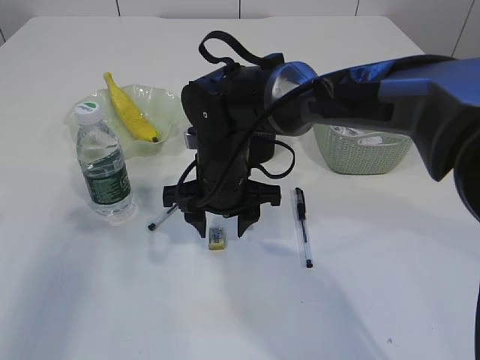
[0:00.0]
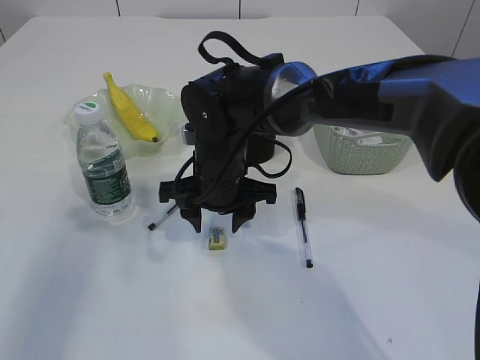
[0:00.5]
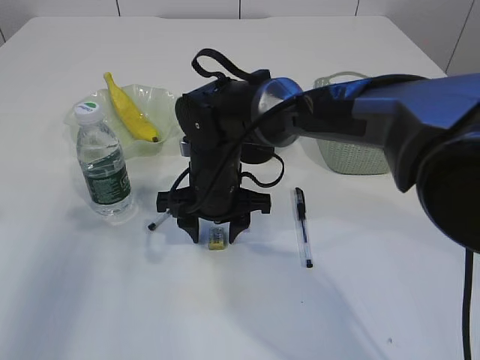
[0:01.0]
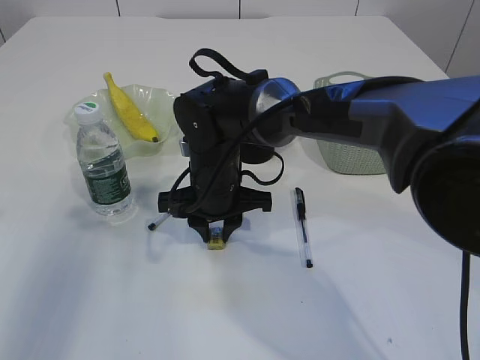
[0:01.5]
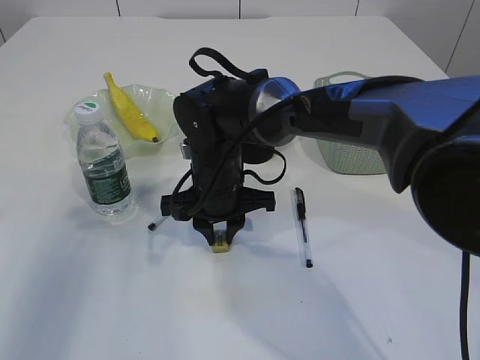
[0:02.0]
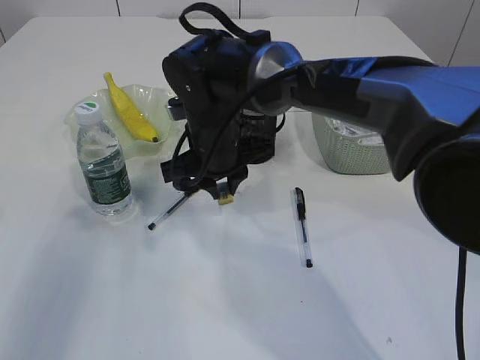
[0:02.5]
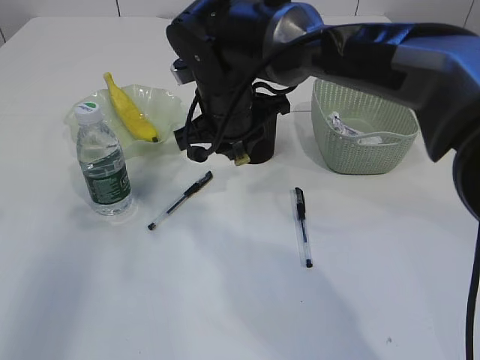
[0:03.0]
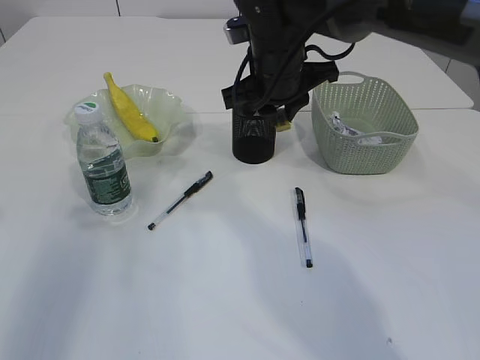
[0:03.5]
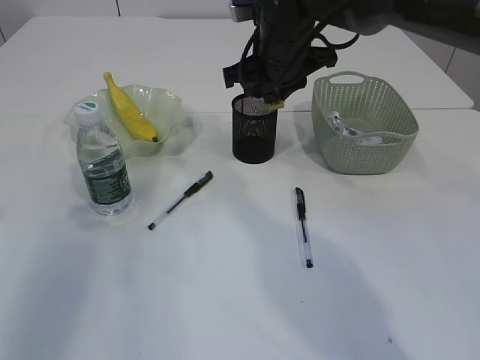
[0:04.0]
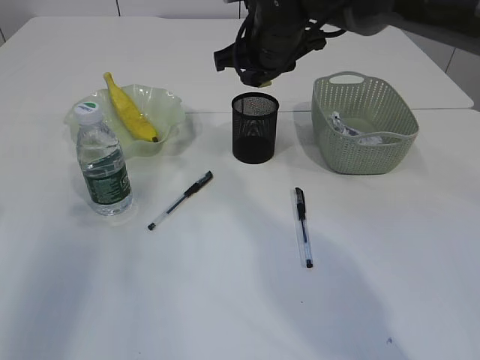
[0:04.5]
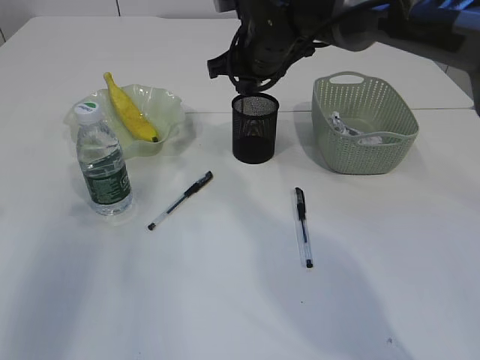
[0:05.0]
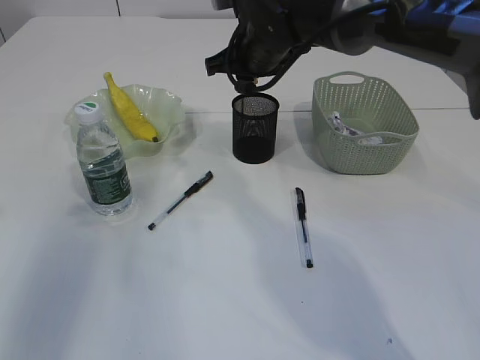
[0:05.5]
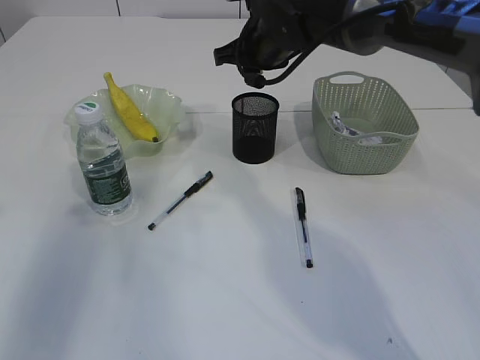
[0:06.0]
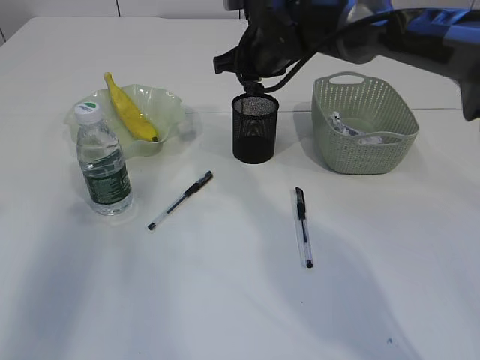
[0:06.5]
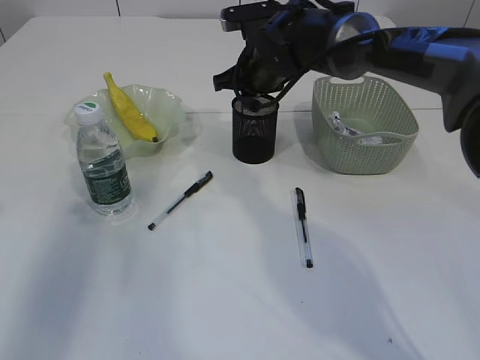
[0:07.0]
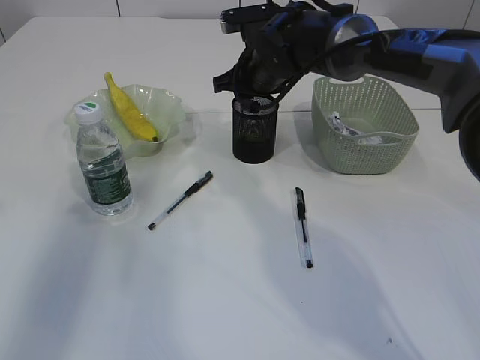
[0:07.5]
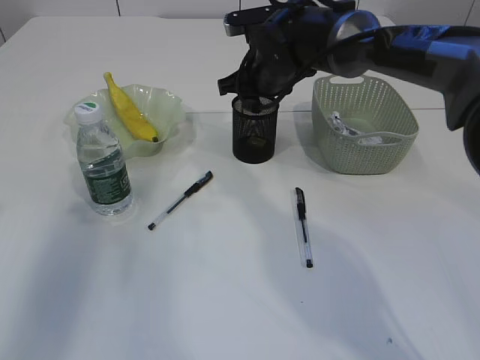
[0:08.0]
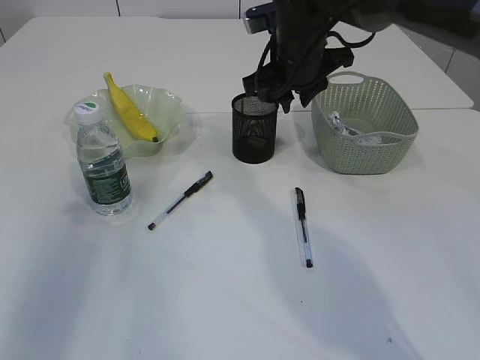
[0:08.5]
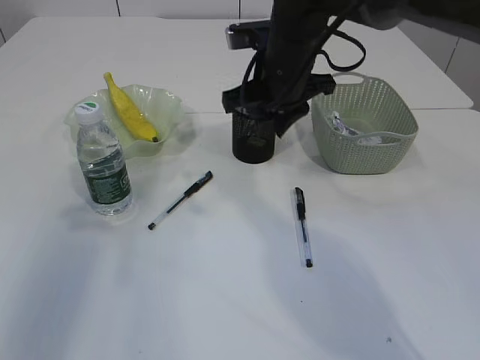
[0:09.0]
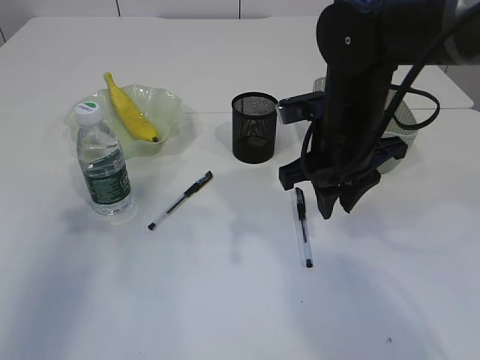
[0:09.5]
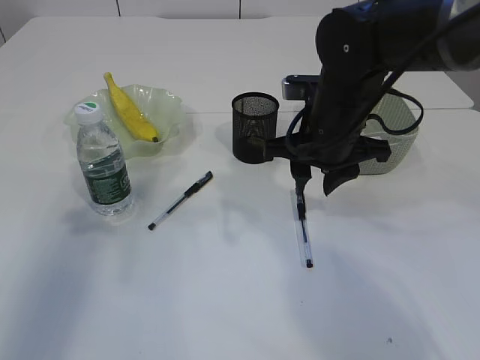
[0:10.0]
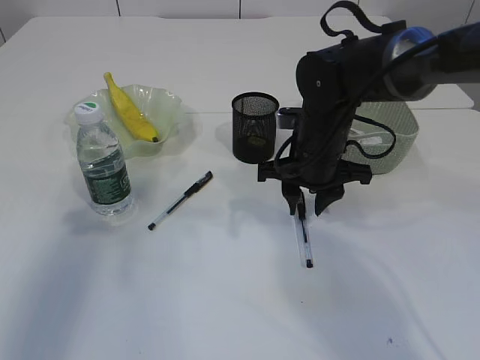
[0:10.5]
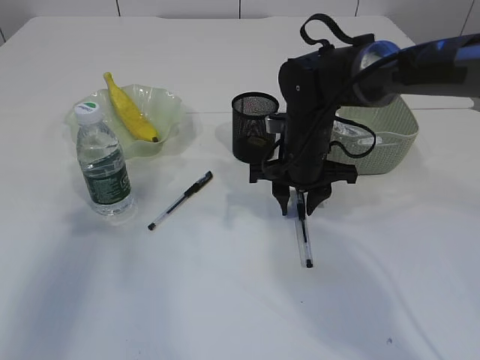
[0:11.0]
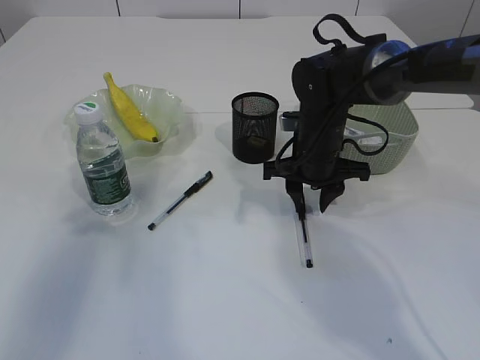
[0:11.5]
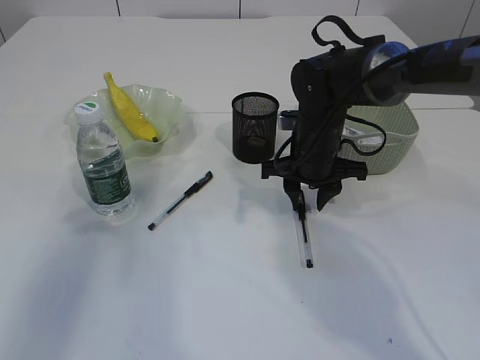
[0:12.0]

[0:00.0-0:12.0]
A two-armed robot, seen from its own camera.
Step, 0:00.0 to 0:02.0: Pick up the eraser.
Step, 0:02.5 to 0:08.0: Place the eraser into the pen holder.
0:00.0 to 0:02.0: The right gripper closes its fingers.
0:02.0 to 0:04.0: The right gripper goes roughly 15 cm upward, to the right and forward.
0:06.0 to 0:08.0: There are only small adjustments of the grippers.
0:08.0 to 0:10.0: The right gripper heads backward, covering some 15 cm.
0:10.0 to 0:12.0: The right gripper goes some 10 cm downward and forward.

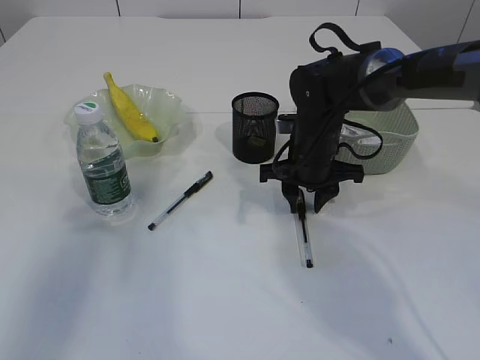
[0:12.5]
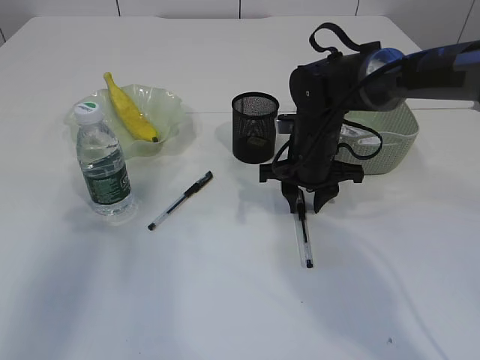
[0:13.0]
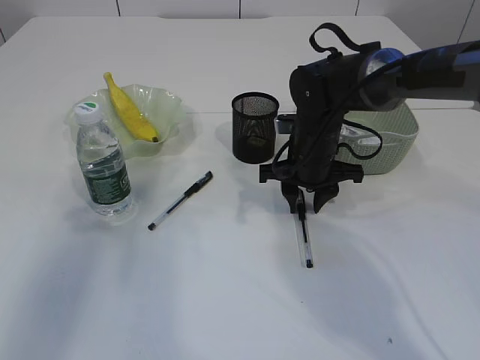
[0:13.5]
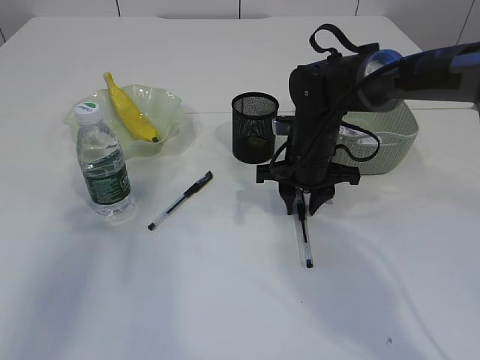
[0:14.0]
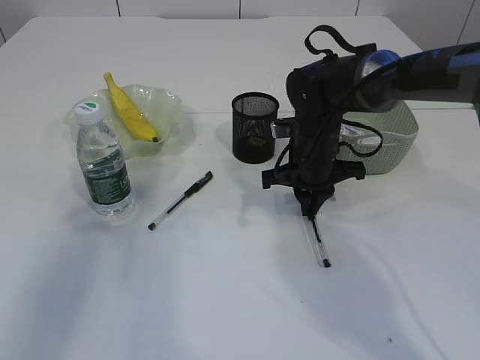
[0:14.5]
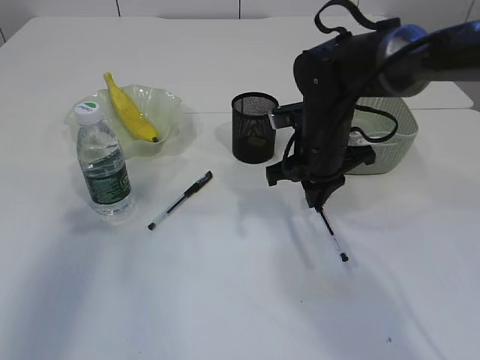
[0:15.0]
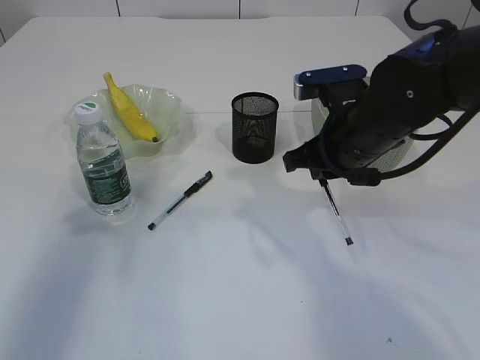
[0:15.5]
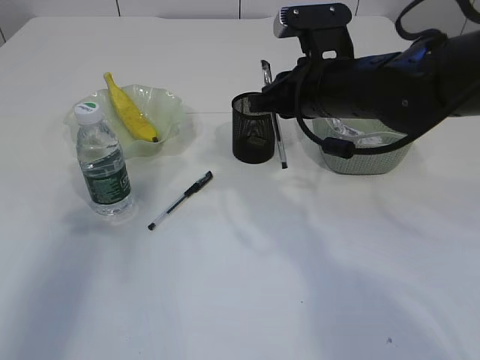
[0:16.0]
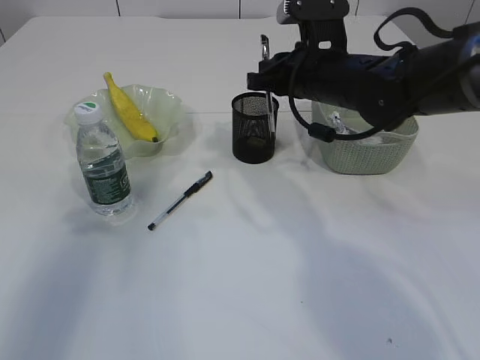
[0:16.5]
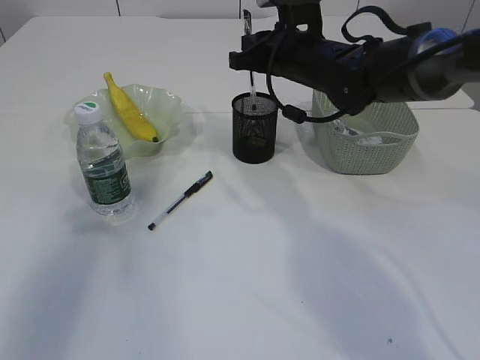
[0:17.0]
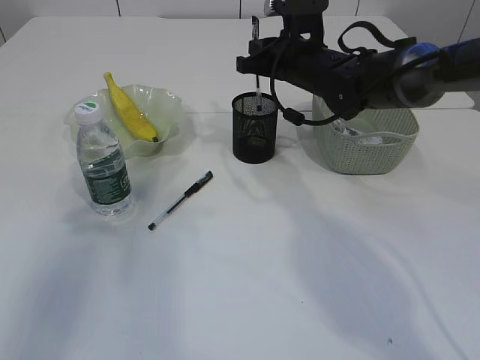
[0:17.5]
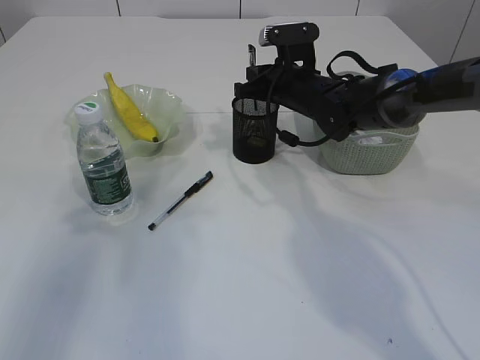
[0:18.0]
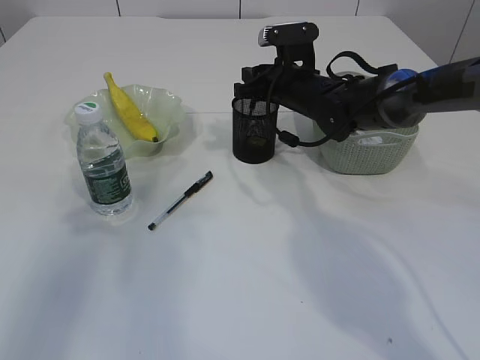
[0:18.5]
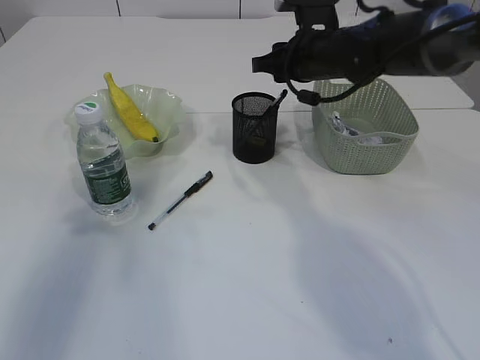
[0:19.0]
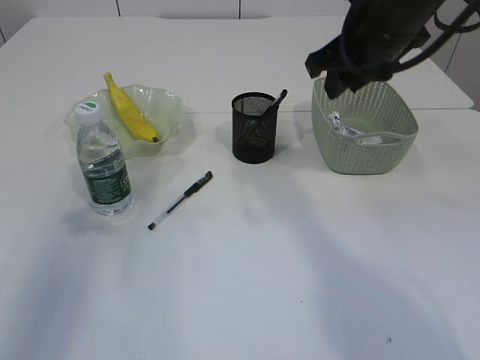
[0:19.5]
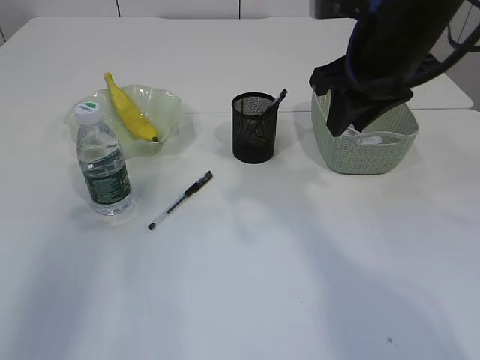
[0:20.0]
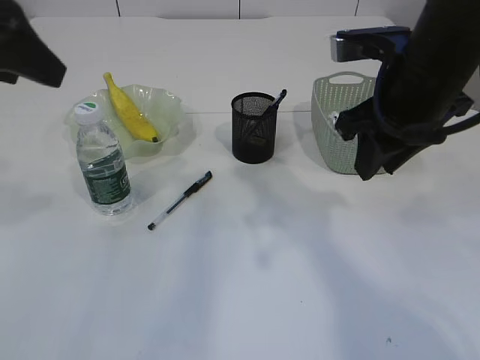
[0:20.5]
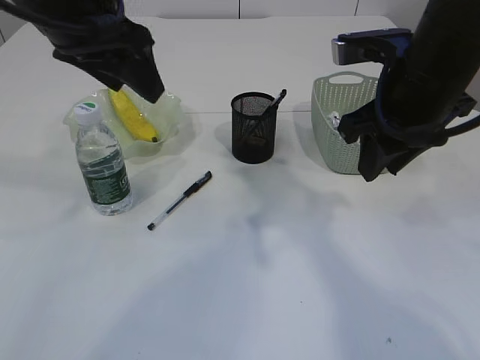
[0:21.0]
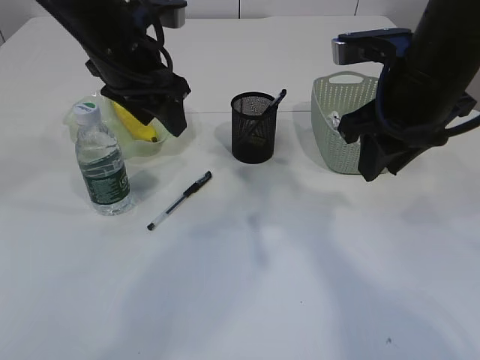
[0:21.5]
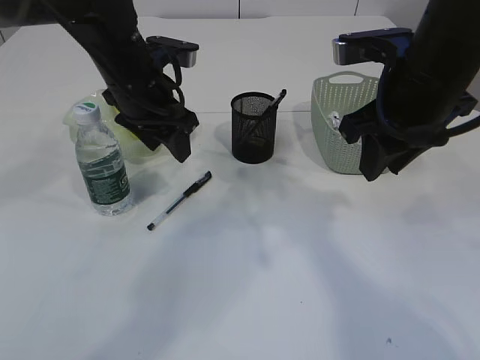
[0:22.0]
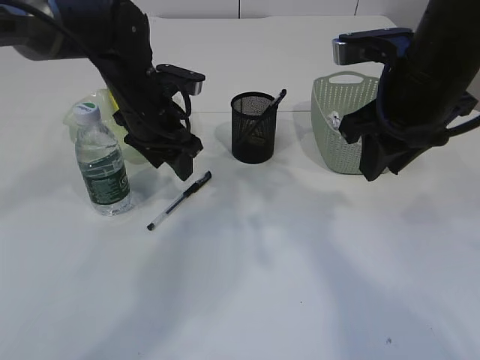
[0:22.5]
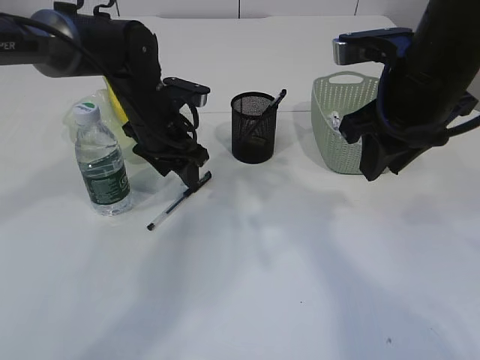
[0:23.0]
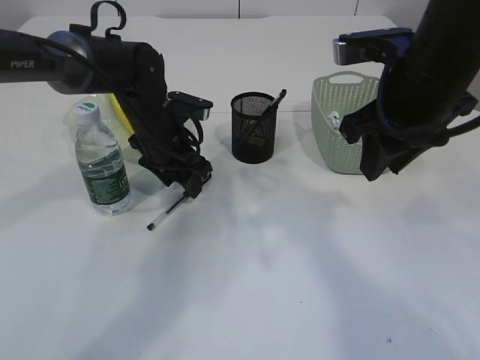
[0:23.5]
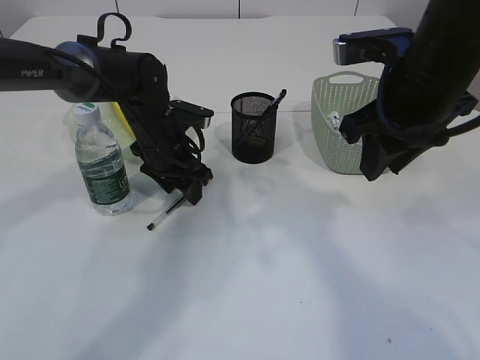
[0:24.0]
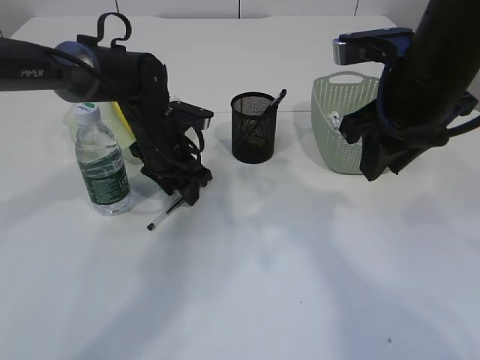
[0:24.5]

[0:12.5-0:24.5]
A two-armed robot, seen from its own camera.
Step, 0:12.5 to 0:15.0: Pick up the pen with right arm.
Step, 0:15.5 to 0:18.5: Place the pen into the pen holder.
0:12.5 to 0:14.5: The right gripper closes.
0:14.5 to 0:16.5: The right gripper travels upward by some 10 cm.
0:16.5 to 0:18.5: The right gripper moves forward and downward, approximately 10 cm, and opens up.
0:18.5 to 0:20.5: The right gripper shifts roughly 20 cm backward and upward; the left gripper moves to the right and upward, approximately 10 cm.
0:20.5 to 0:22.5: The left gripper is displaced downward, forward and to the right by roughly 25 cm.
0:22.5 to 0:24.5: The left gripper shifts approximately 5 cm downward.

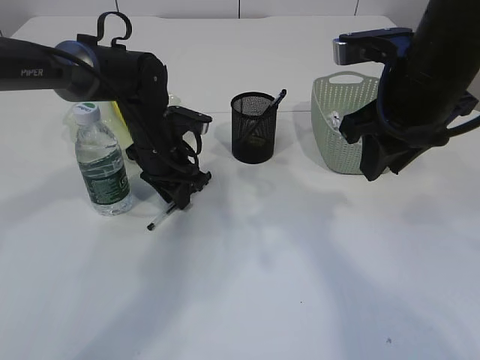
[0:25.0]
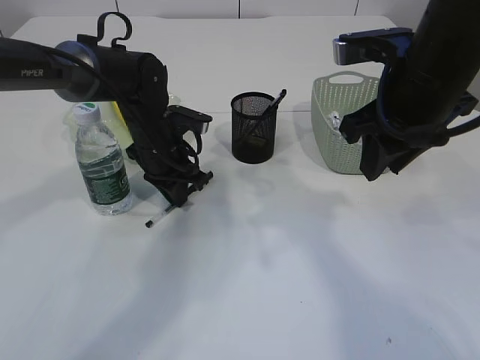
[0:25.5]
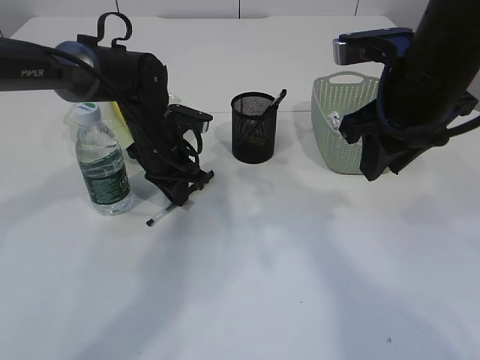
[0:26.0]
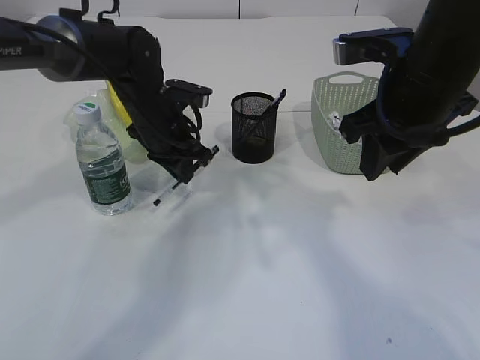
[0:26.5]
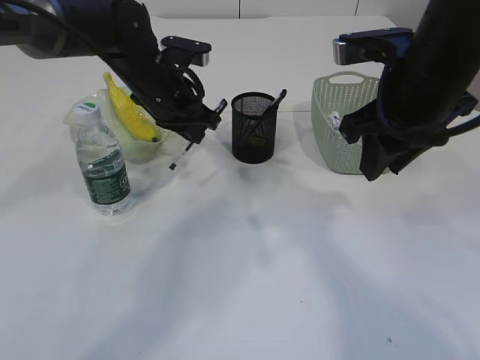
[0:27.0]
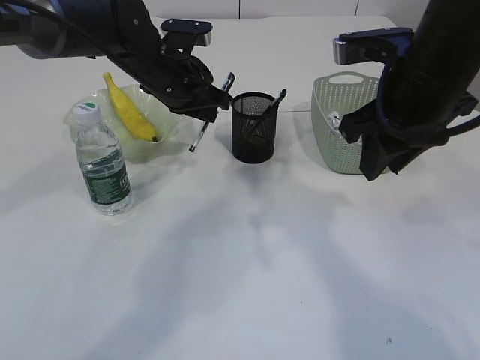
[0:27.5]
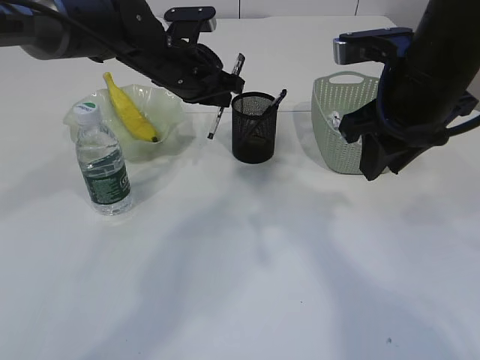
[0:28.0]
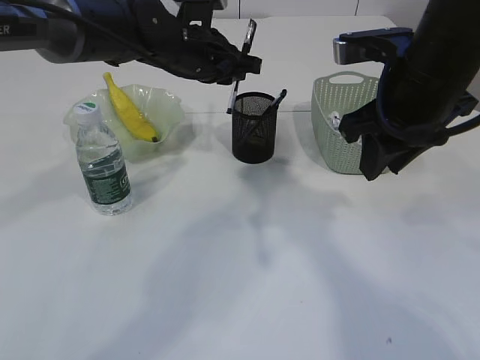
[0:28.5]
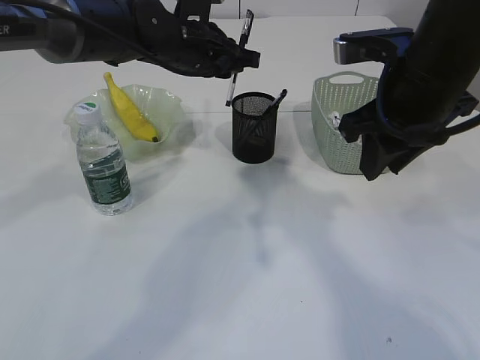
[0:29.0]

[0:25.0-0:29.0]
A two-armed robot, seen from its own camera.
Step, 0:25.0 to 0:27.0: Pick up the pen with left arm.
0:25.0 to 0:27.0: The left gripper shifts approximately 5 cm upward.
0:27.0 to 0:29.0: The left gripper moves roughly 5 cm.
